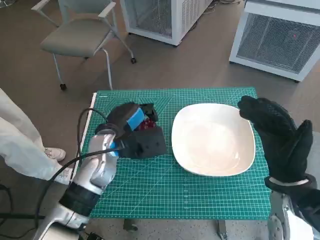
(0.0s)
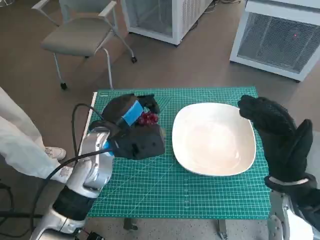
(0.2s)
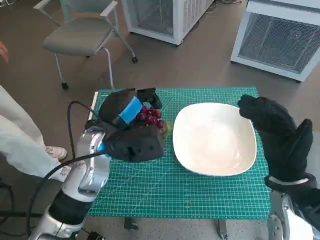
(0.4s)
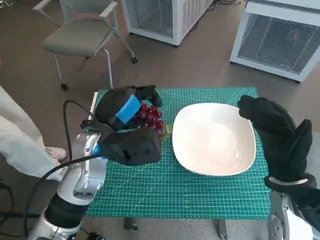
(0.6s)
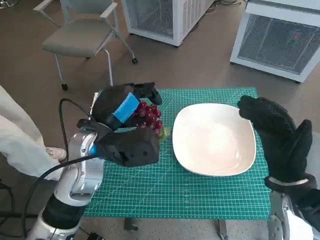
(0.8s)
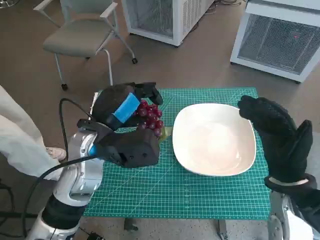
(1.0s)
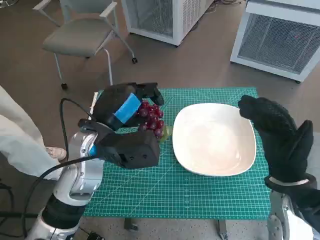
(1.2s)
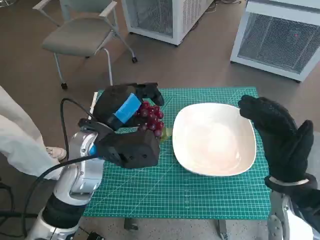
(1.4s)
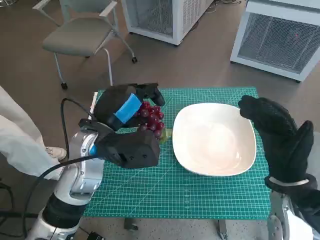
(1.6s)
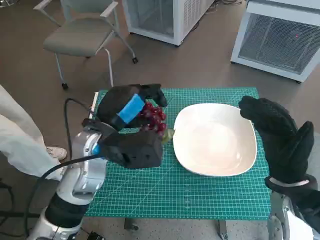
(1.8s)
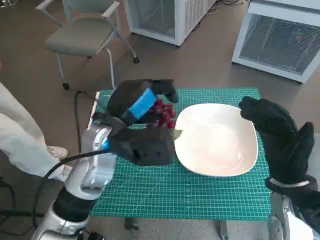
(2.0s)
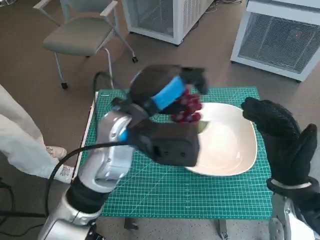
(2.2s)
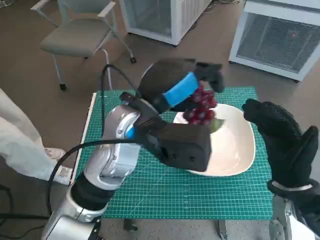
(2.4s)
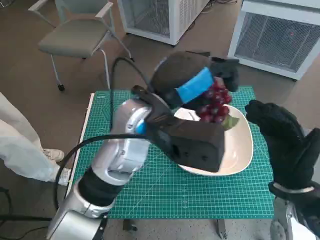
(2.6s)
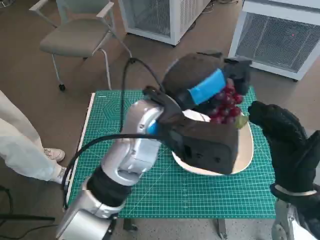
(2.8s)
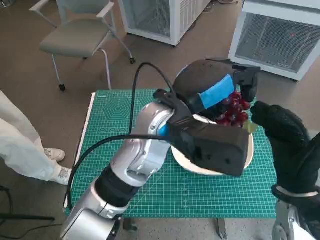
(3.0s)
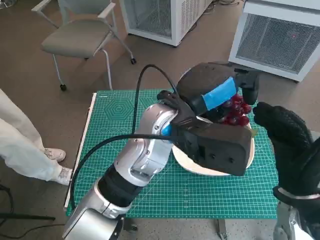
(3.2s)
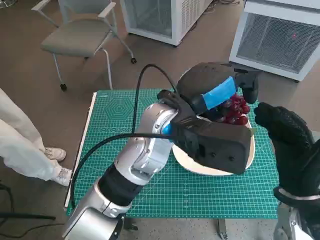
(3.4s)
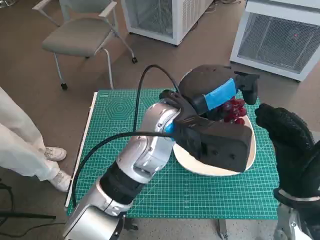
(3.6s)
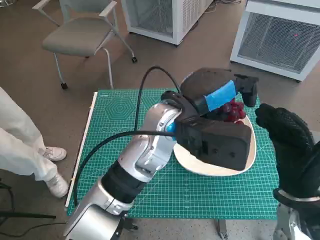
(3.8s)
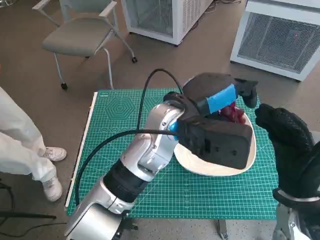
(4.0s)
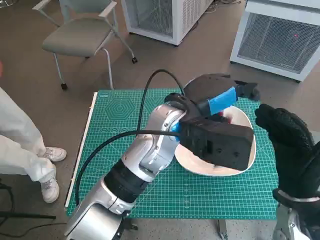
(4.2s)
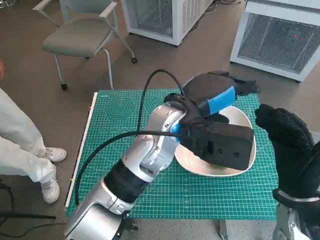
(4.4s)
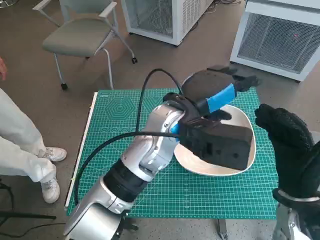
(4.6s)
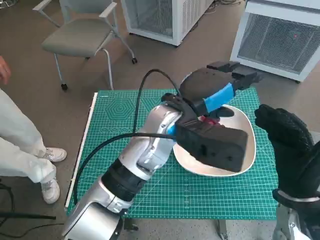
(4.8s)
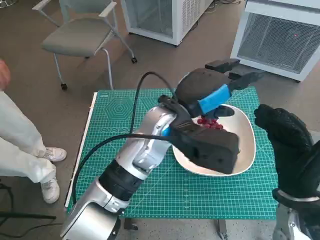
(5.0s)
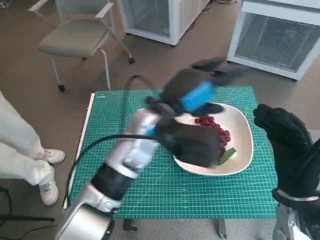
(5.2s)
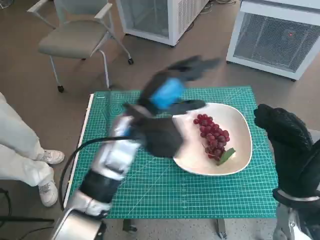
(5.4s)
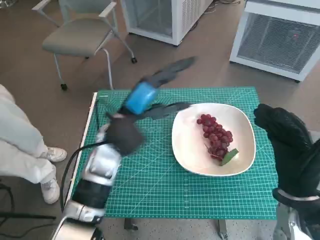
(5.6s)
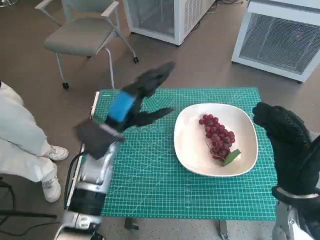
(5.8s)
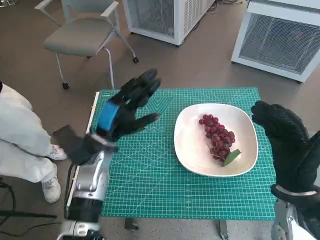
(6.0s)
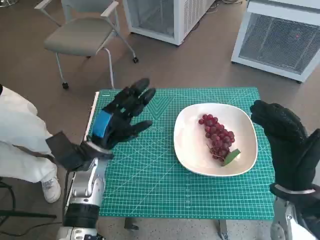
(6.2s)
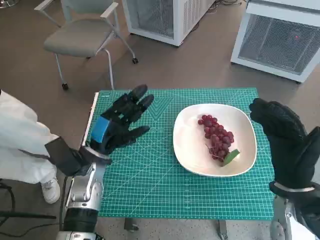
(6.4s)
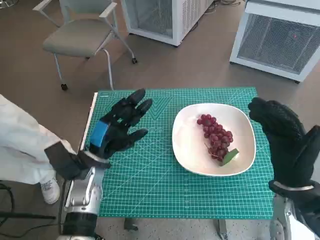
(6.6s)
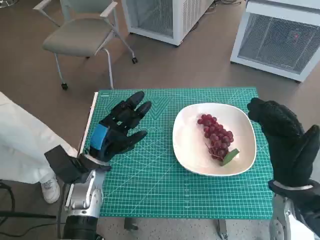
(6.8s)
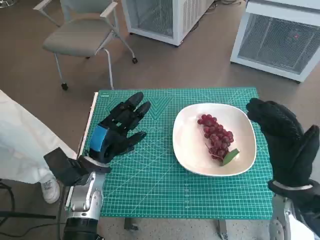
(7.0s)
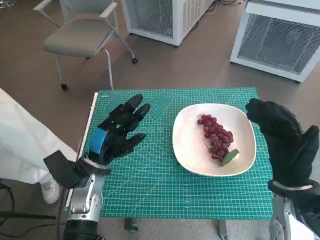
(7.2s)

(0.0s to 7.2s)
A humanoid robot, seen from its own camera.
Task of the whole recording: Pick up the grapes and put them on the plate.
Step, 0.0s - 4.4s: Place the grapes in the plate with left hand.
0.0s - 1.4s: The left hand is displaced upward by some 5 cm.
1.4s - 2.8s: The left hand is displaced to the right and upward by about 10 cm.
4.4s - 5.8s: The left hand is displaced to the left and downward by some 15 cm.
5.8s - 7.2s: The left hand heads downward, covering approximately 10 cm.

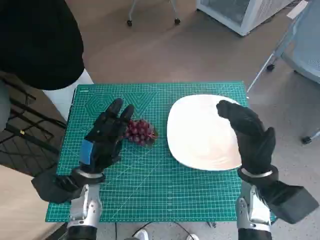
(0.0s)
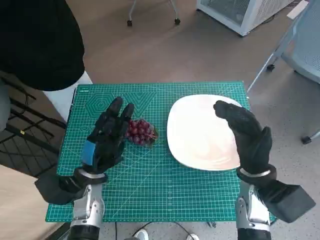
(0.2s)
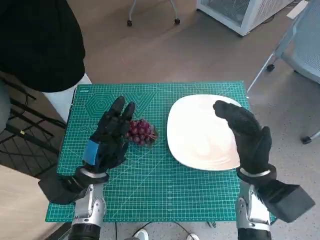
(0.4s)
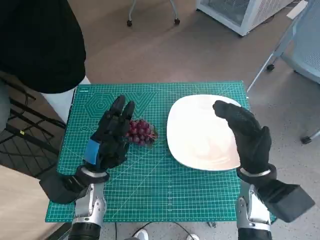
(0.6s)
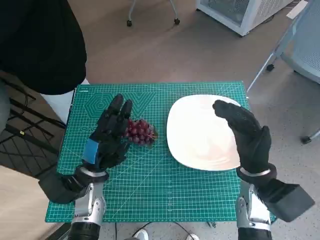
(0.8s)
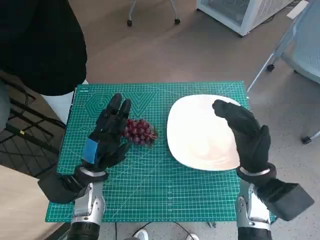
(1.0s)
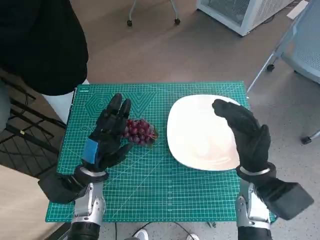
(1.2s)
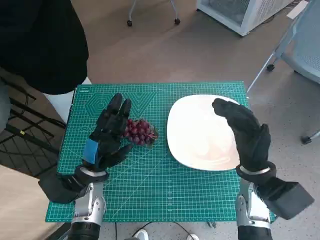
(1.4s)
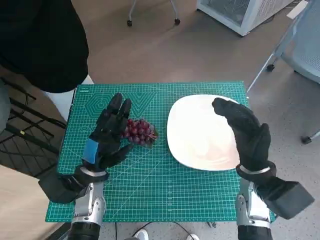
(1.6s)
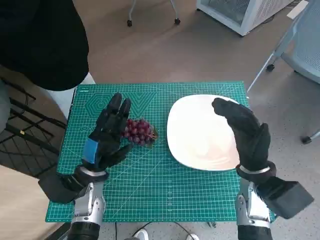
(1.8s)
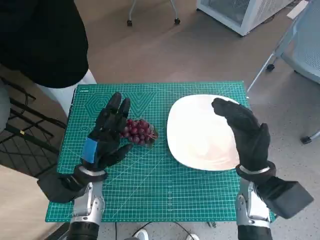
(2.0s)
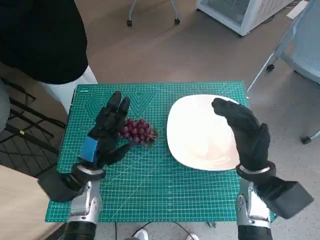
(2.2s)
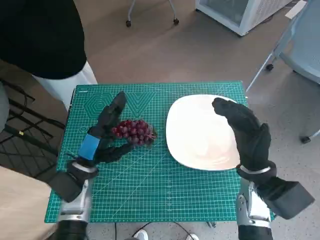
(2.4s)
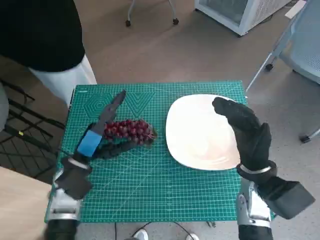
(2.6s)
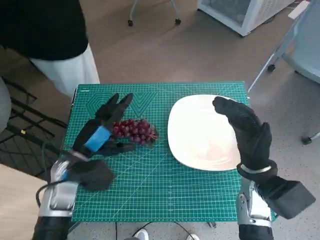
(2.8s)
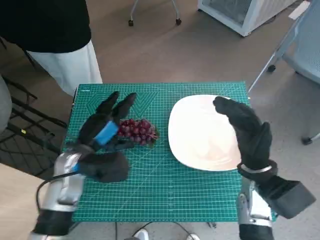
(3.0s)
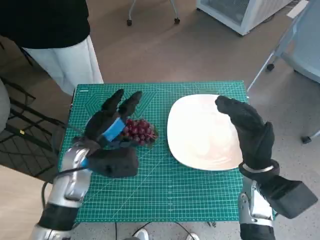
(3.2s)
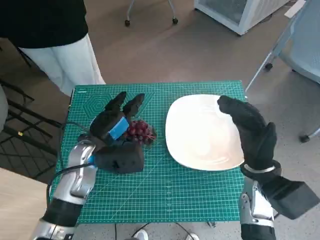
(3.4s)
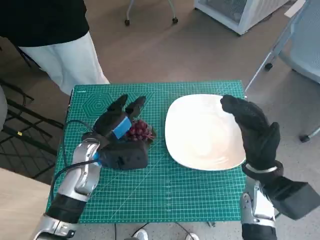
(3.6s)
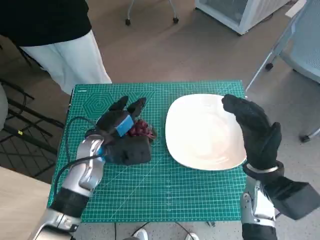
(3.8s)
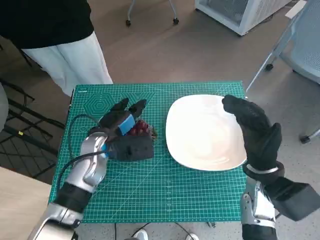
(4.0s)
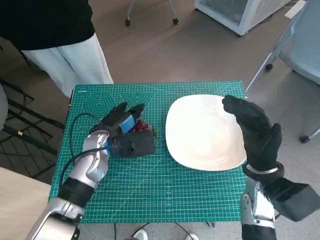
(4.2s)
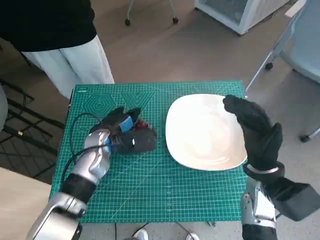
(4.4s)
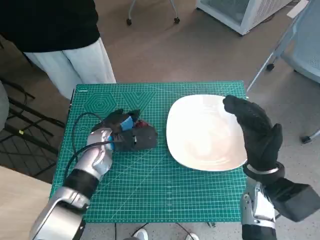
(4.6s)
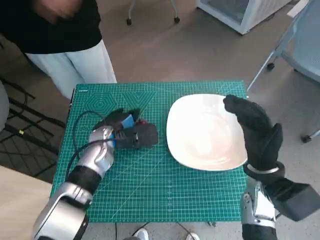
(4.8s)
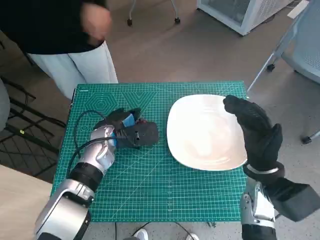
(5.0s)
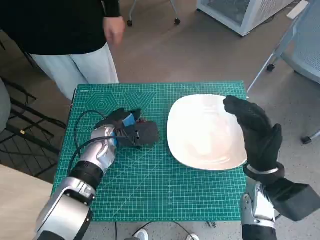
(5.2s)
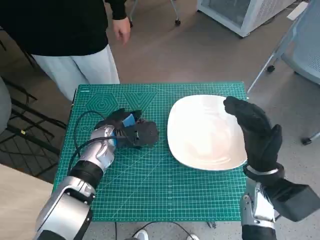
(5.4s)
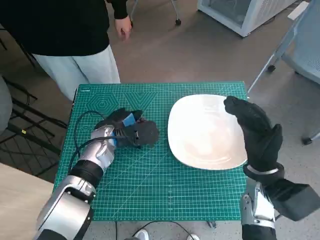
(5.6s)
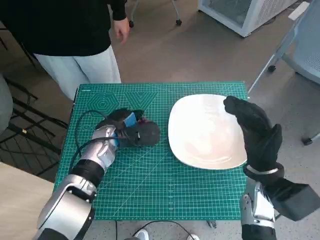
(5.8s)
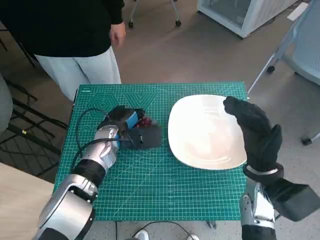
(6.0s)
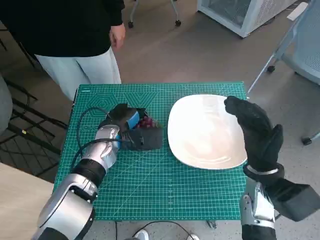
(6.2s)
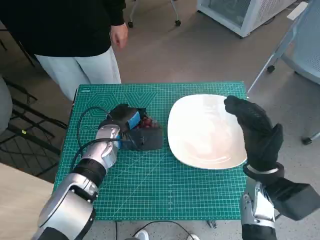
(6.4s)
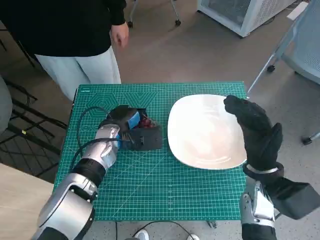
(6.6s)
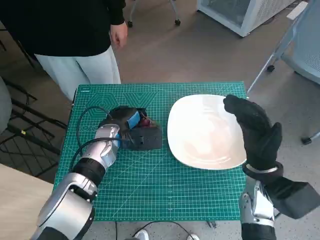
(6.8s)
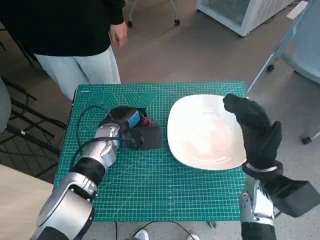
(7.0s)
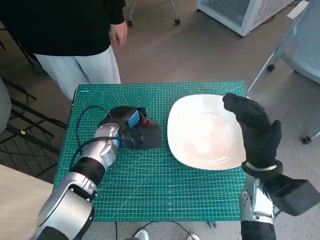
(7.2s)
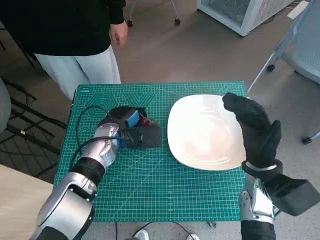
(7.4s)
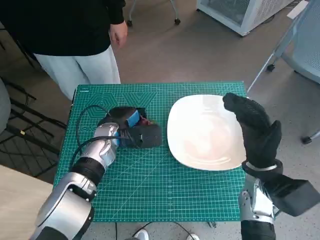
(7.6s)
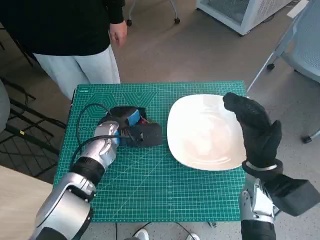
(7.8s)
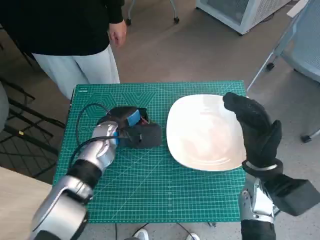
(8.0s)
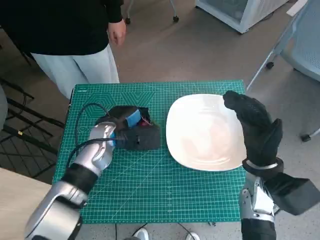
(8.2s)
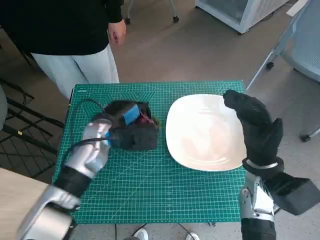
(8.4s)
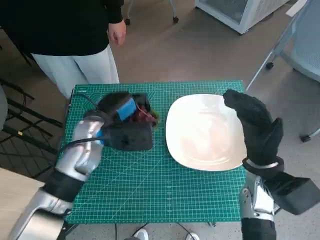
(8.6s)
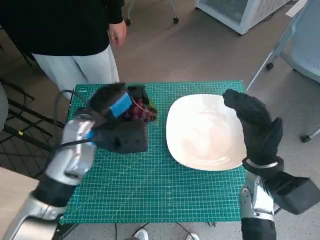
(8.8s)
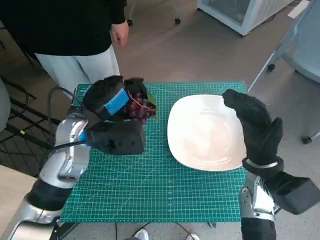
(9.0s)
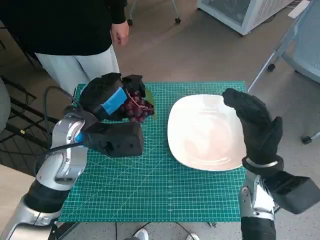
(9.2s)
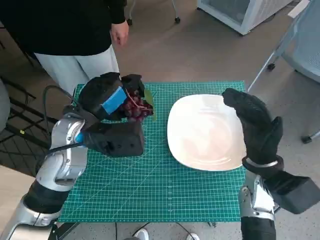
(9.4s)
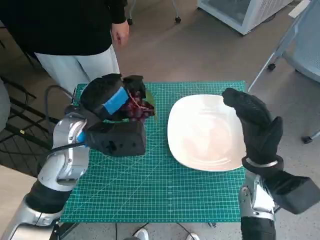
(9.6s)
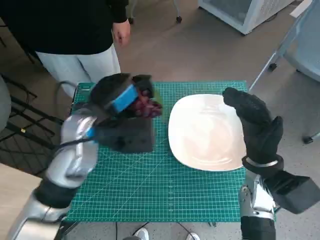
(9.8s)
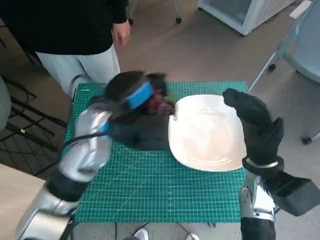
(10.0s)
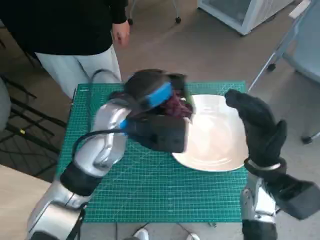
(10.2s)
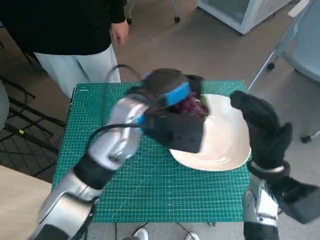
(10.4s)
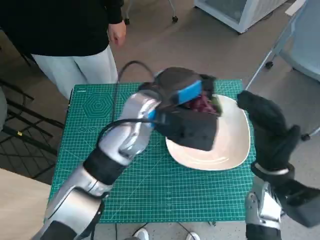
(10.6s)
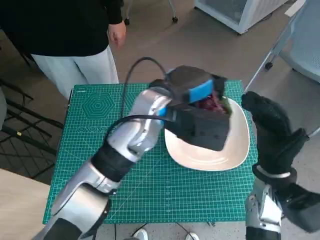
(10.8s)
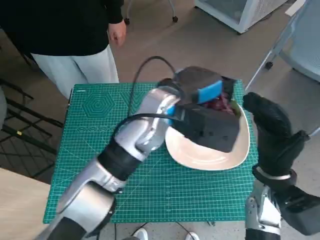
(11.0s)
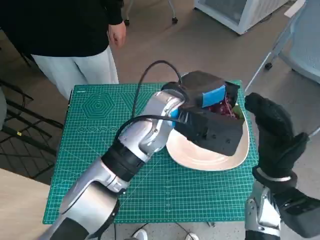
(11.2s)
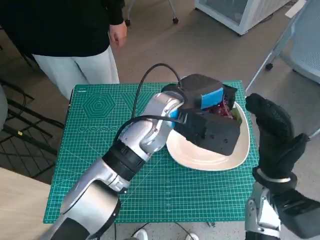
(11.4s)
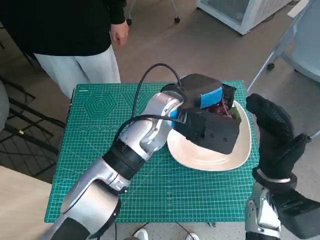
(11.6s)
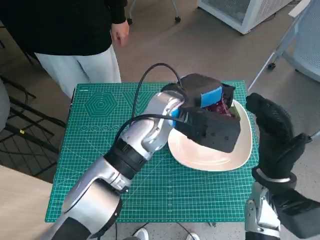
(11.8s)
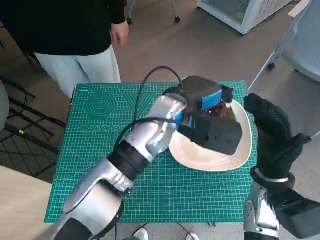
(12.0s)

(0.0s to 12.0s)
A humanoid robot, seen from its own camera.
Task of the whole recording: Pick up the grapes and put them on the plate.
Step, 0.0s - 5.0s: Grasp the grapes with left hand.
1.6s - 3.0s: The left hand heads upward, covering approximately 5 cm.
3.0s - 4.4s: The left hand is displaced forward by roughly 5 cm.
4.4s - 6.0s: The hands make only small movements.
6.0s - 7.6s: Both hands stay about where they are.
7.6s - 9.0s: The left hand heads upward, covering some 10 cm.
9.0s - 10.4s: The left hand goes some 10 cm to the right.
10.4s - 12.0s: The left hand moves to the right, roughly 5 cm.

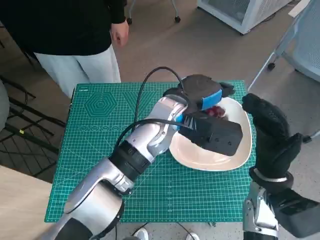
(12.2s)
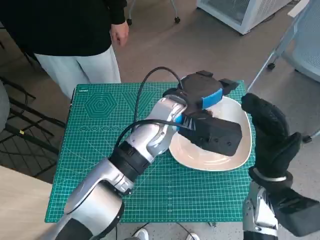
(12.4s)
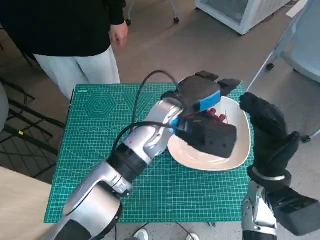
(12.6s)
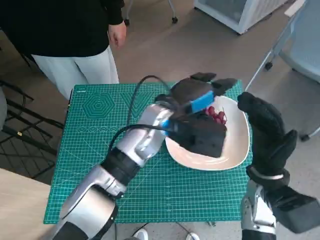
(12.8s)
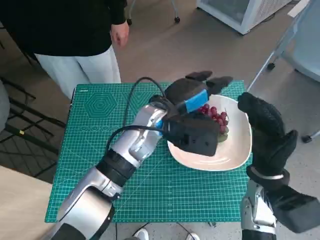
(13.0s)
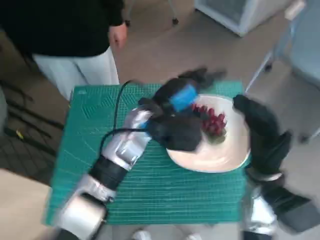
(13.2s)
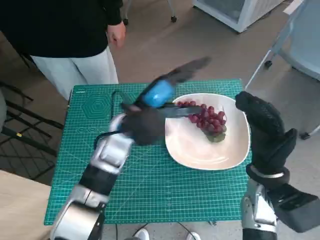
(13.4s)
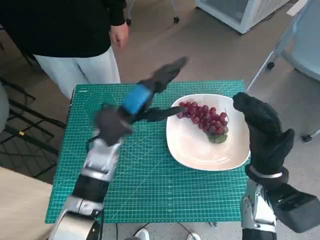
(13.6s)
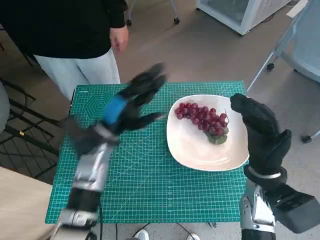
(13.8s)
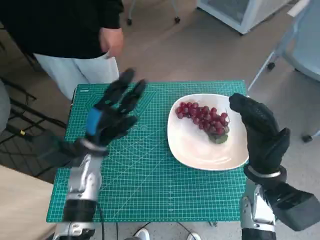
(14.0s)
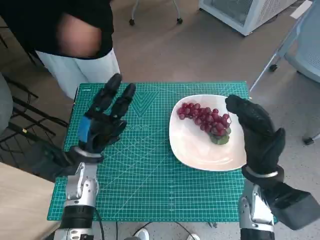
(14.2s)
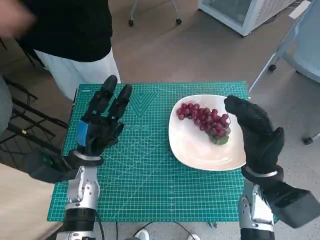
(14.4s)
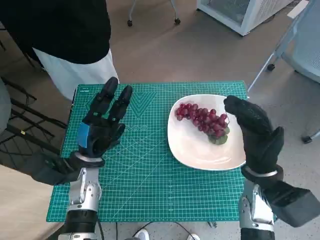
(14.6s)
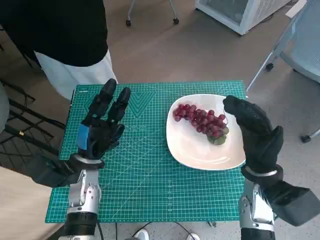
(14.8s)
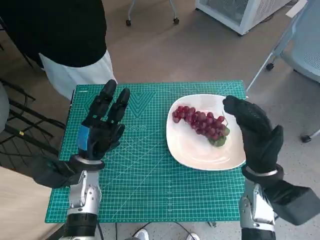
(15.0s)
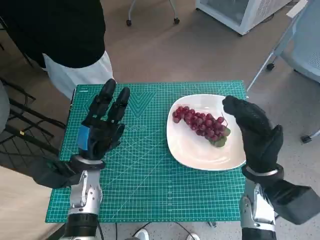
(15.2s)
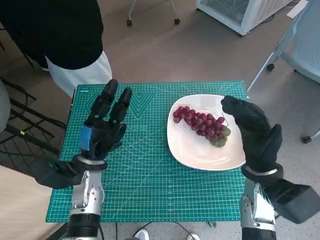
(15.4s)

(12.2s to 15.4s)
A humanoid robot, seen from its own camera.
Task of the whole recording: Pick up the grapes and put them on the plate.
12.2s - 13.8s: The left hand shifts some 15 cm to the left and downward.
13.8s - 15.4s: The left hand moves downward, about 5 cm.
